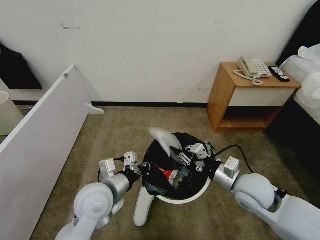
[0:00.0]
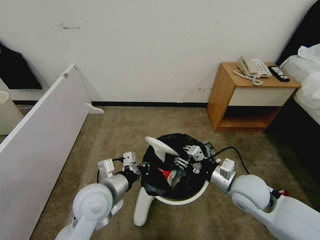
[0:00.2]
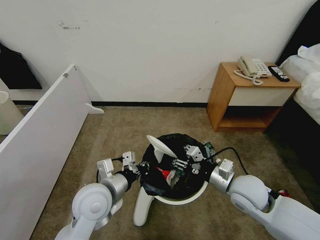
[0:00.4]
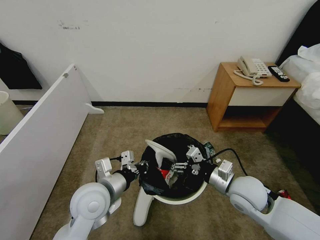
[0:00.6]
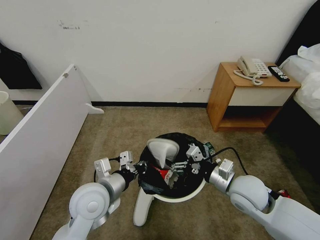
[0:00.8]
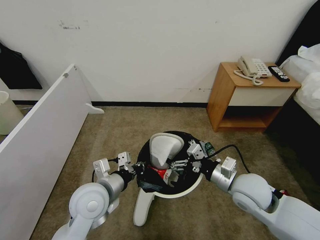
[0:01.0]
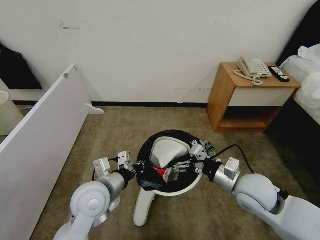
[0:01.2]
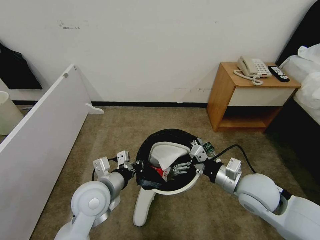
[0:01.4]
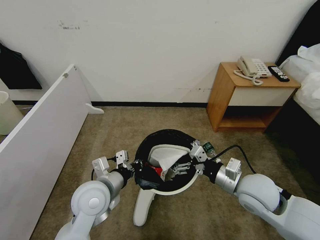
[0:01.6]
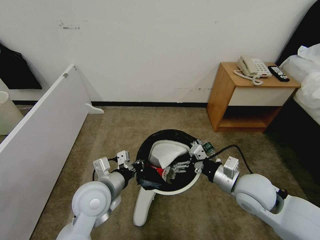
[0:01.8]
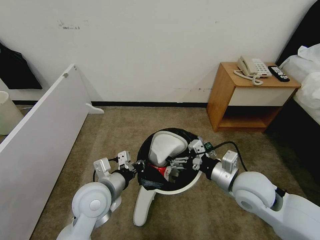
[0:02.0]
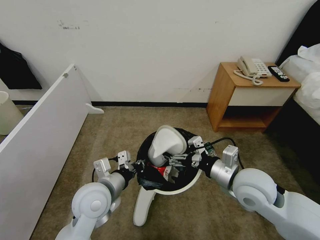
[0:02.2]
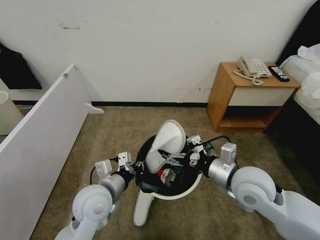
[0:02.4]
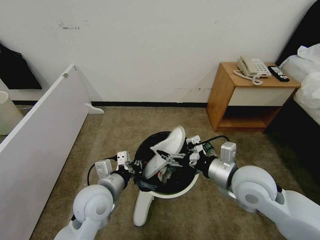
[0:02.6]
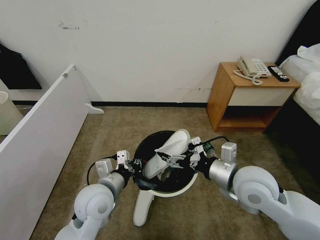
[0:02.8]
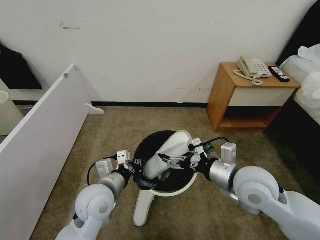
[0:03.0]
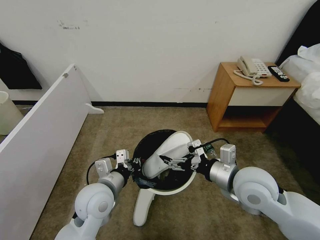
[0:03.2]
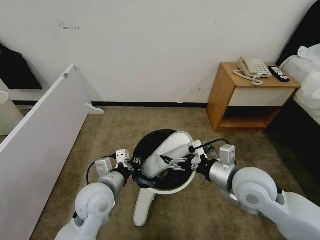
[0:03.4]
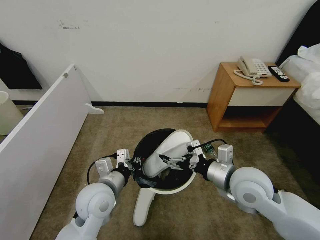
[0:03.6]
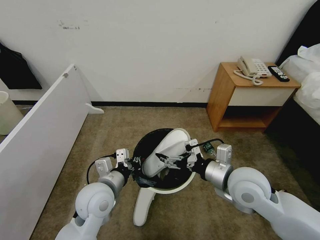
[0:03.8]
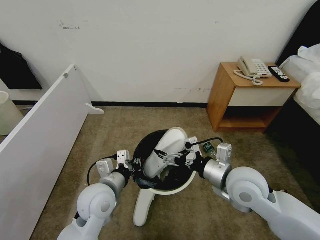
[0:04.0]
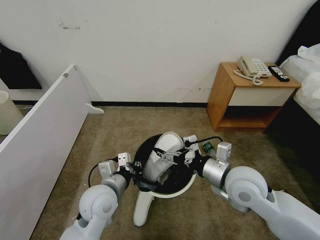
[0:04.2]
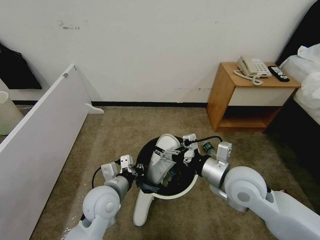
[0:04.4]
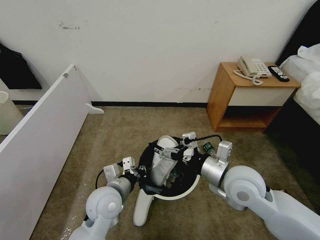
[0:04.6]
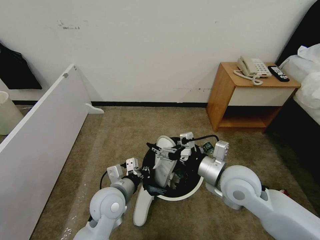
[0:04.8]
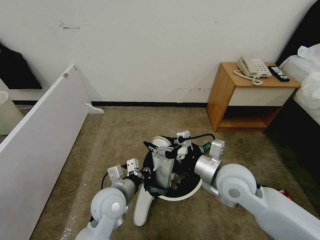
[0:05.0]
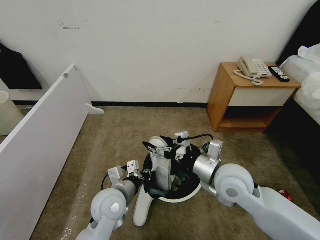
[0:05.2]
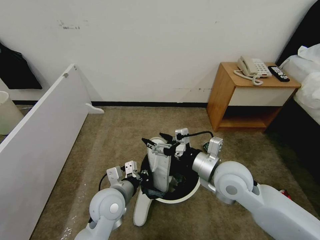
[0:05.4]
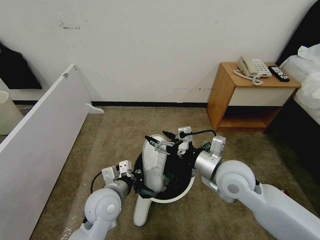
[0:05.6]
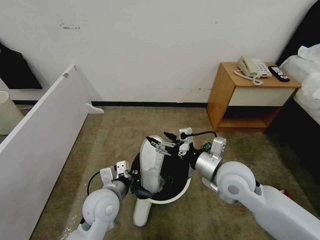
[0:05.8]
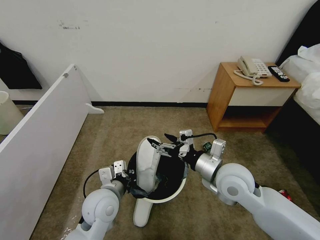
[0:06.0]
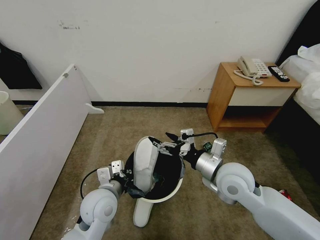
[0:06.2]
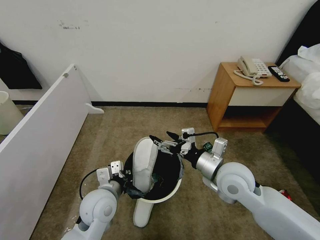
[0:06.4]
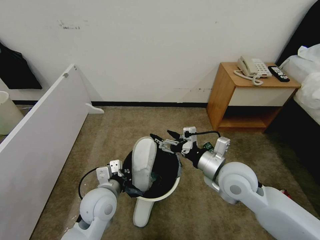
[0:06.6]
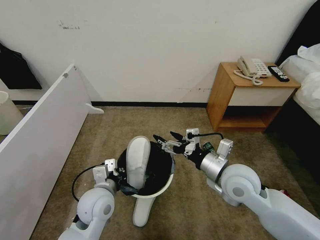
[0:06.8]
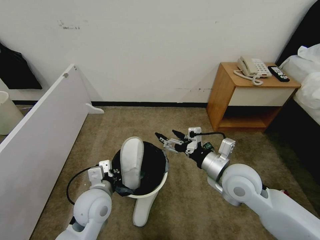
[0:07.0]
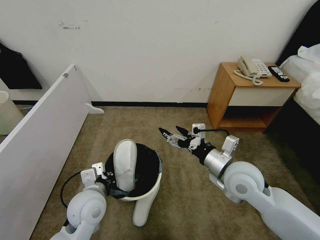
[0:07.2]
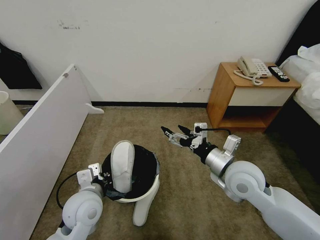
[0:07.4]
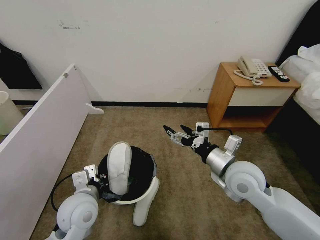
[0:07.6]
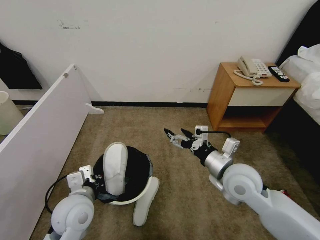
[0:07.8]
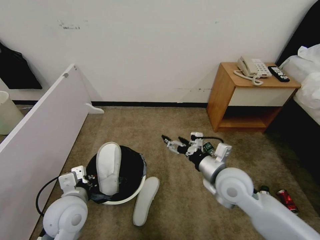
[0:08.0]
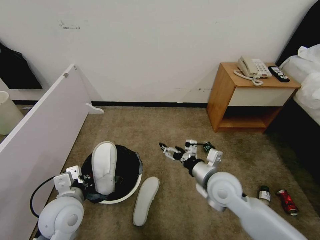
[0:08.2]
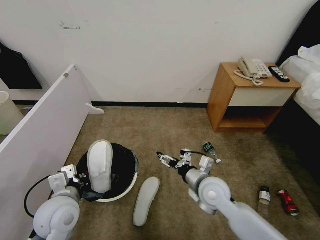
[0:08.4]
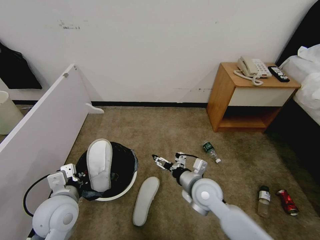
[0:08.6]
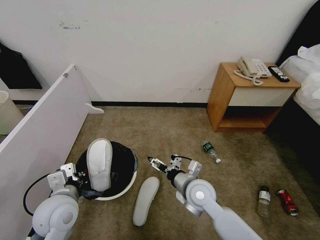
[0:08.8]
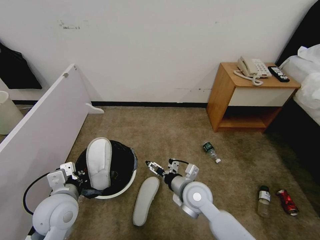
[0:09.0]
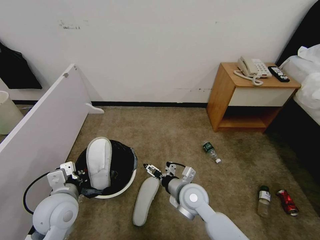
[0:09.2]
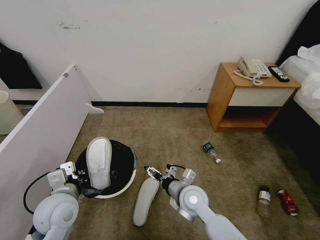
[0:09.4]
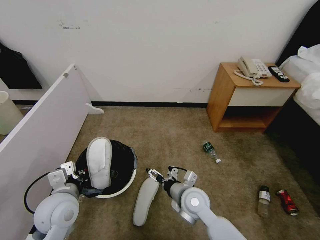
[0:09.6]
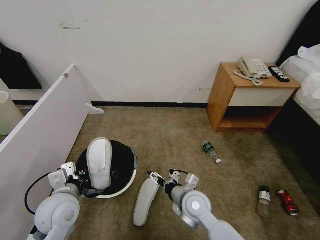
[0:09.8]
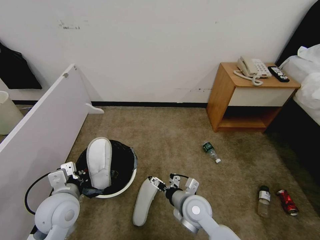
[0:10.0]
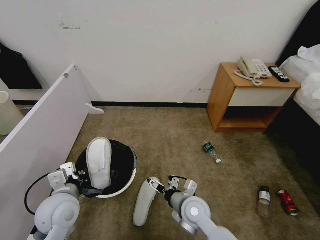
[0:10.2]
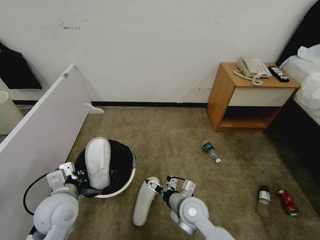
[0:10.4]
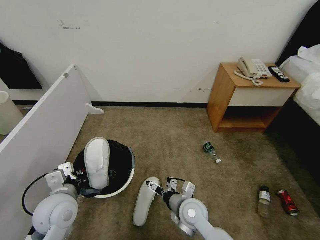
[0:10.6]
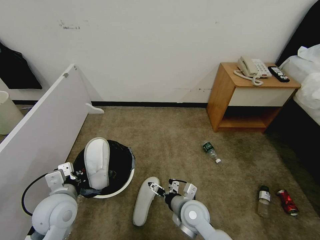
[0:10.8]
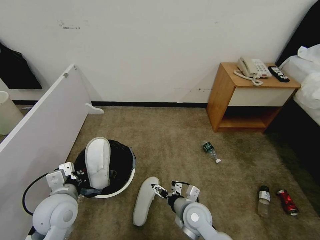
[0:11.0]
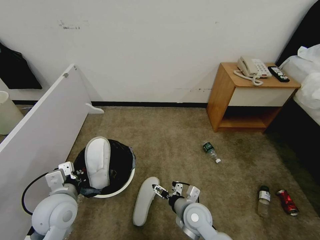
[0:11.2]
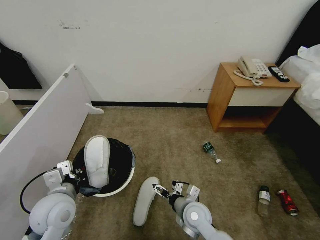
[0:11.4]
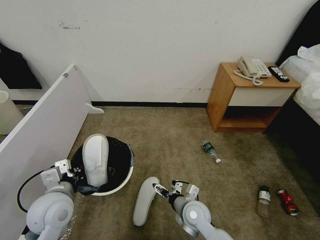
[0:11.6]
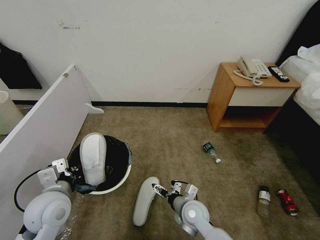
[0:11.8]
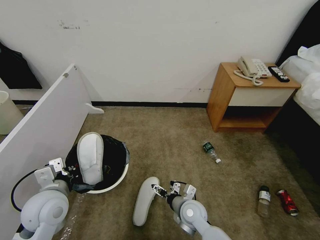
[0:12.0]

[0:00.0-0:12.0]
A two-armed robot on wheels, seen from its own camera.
Task of the whole recording: Pick up the trash bin, then pick up the garbage from the floor and place it into the trash bin.
0:00.0 to 0:01.6: The right gripper opens its fingers.
0:01.6 to 0:03.0: The right gripper moves about 5 cm.
0:03.0 to 0:06.0: There are only small adjustments of the grippers.
0:06.0 to 0:07.6: The left gripper moves about 5 cm.
0:07.6 to 0:09.0: The right gripper goes some 15 cm downward and to the left; the left gripper moves to the left, some 5 cm.
0:09.0 to 0:10.4: The right gripper moves roughly 5 cm.
0:10.4 to 0:12.0: The right gripper goes approximately 5 cm downward.

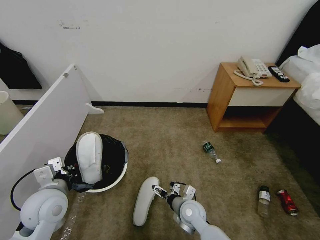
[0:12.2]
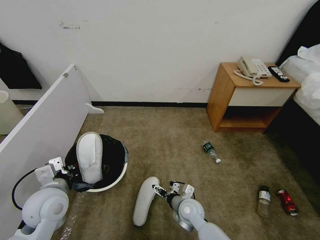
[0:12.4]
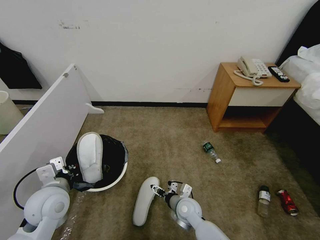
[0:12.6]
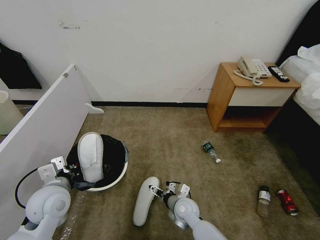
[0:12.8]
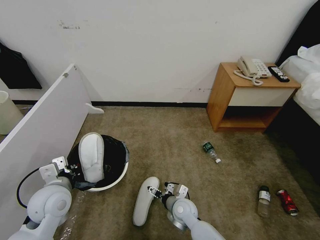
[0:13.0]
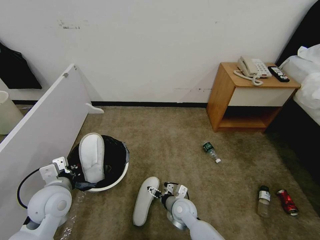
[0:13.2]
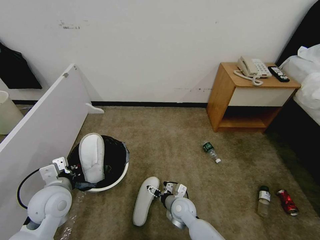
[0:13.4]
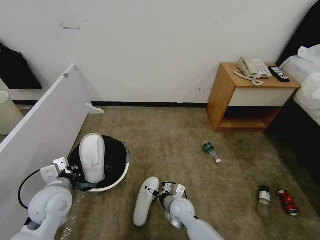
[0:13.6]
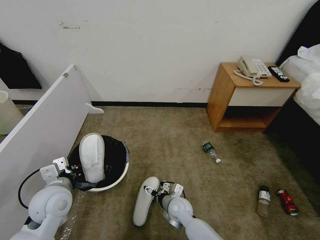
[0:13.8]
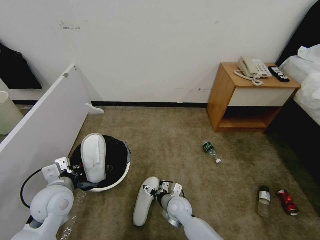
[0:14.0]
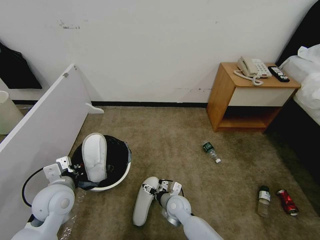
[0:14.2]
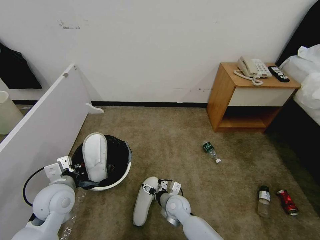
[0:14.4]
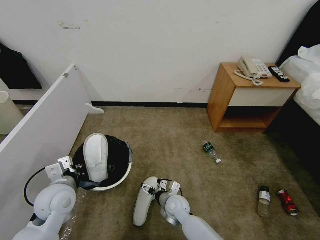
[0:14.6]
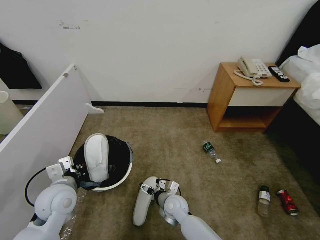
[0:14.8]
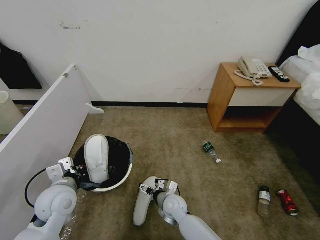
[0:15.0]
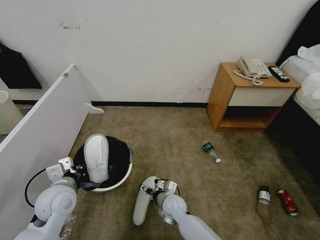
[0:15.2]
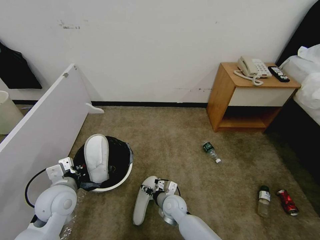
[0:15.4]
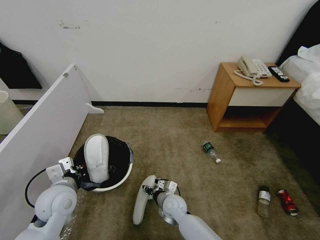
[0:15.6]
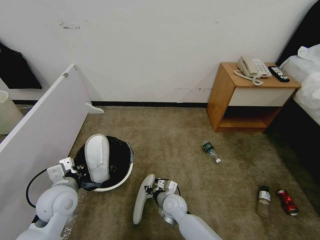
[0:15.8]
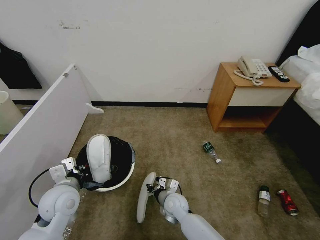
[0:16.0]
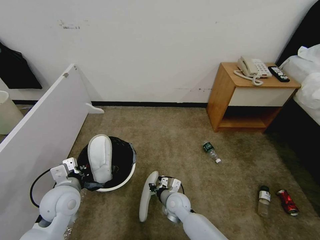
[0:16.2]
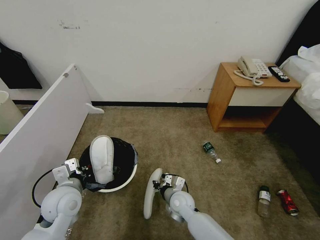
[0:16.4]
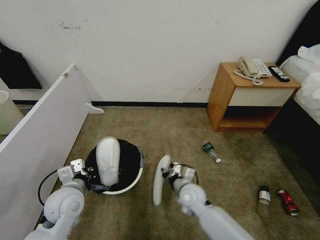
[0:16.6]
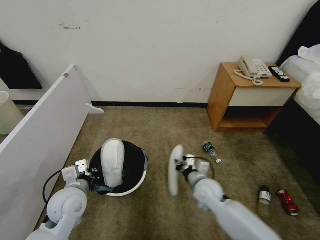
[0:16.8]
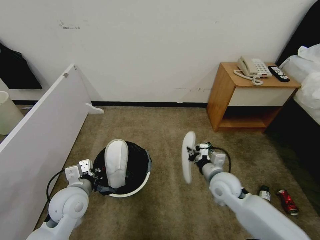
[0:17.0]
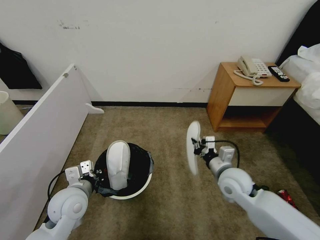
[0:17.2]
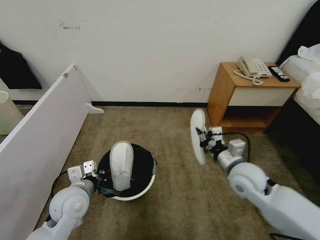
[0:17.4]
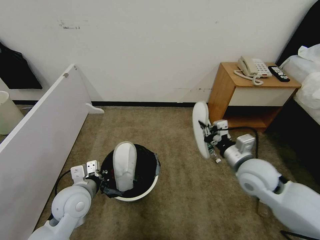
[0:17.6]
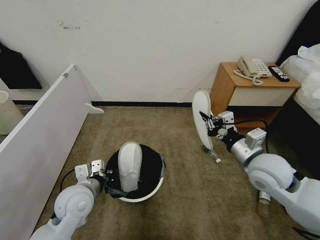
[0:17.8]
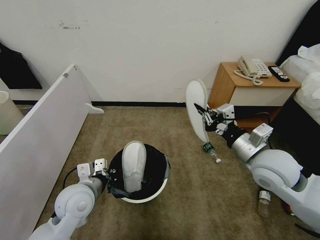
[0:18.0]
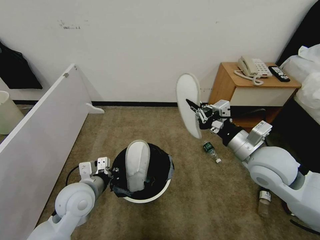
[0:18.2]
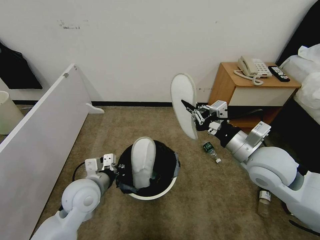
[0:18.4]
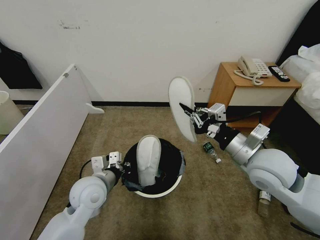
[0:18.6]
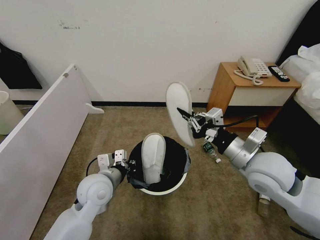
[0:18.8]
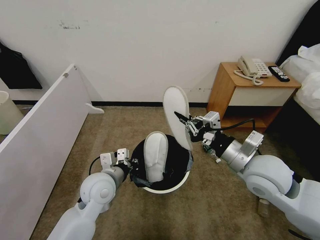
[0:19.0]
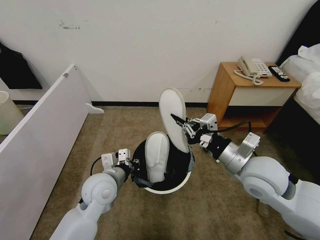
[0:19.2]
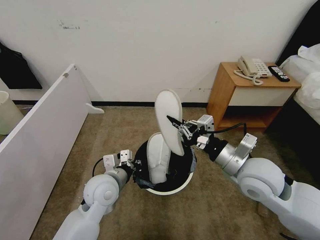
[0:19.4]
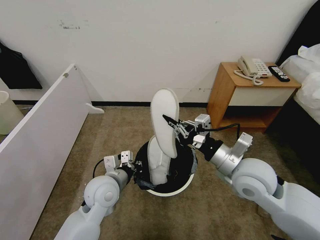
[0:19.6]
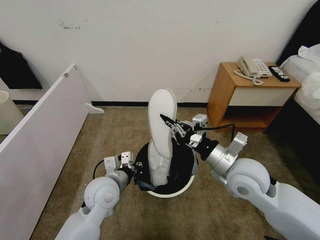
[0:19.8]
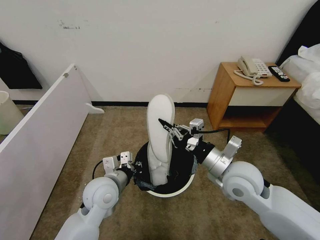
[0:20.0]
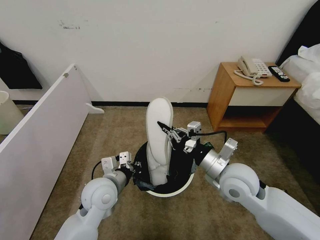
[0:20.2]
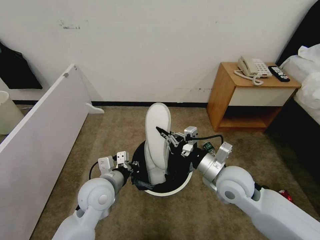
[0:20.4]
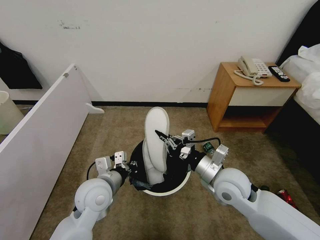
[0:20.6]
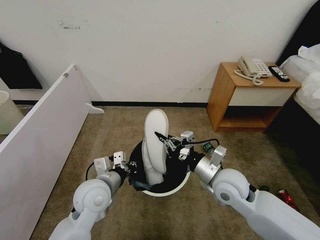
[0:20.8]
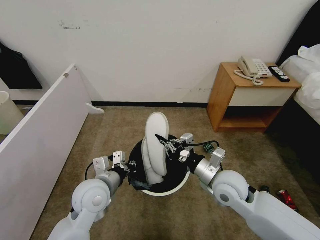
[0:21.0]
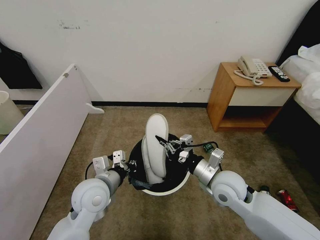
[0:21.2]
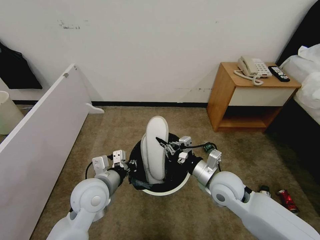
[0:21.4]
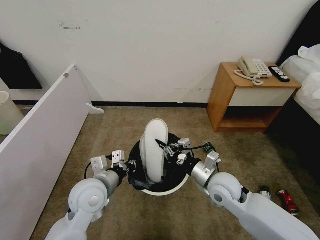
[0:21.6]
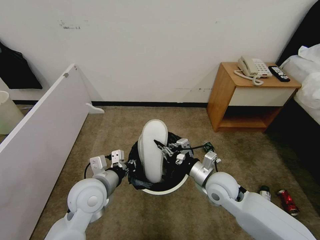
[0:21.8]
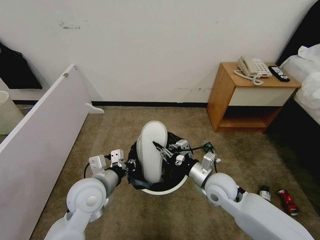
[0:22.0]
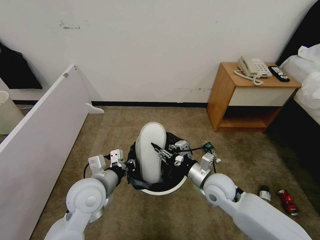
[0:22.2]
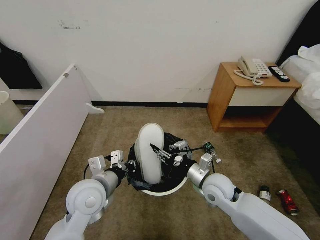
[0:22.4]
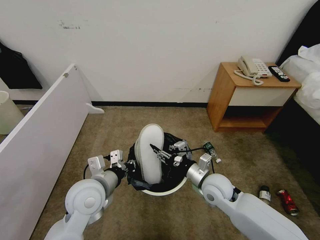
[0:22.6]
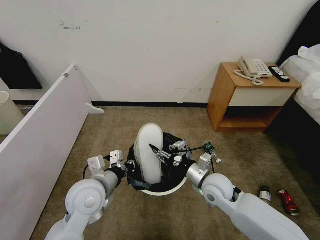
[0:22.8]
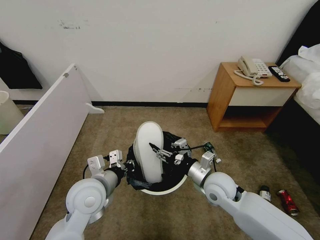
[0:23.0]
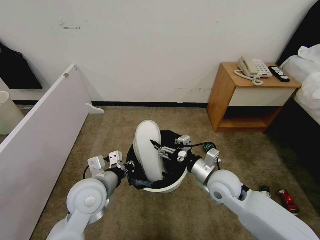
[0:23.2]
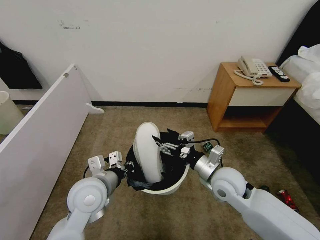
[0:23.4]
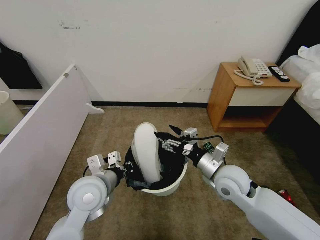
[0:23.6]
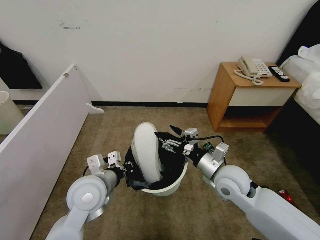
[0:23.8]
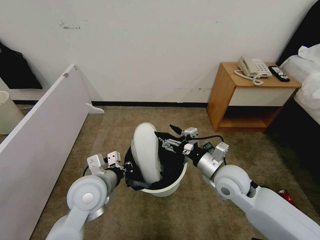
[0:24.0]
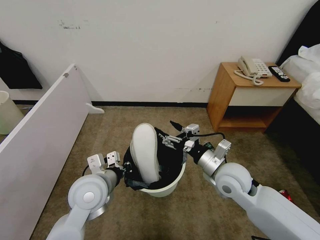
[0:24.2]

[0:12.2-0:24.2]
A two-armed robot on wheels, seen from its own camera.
Task of the whole recording: Pick up the trash bin, then pick up the garbage from the floor and place it into the trash bin.
0:12.2 to 0:13.8: The right gripper ends up roughly 5 cm from where it was.
0:13.8 to 0:15.2: There are only small adjustments of the grippers.
0:15.2 to 0:16.6: The right gripper goes some 5 cm upward, and closes.
0:16.6 to 0:18.2: The right gripper heads upward and to the right, covering approximately 30 cm.
0:18.2 to 0:19.8: The left gripper travels to the right by about 5 cm, while the right gripper goes some 5 cm to the left.
0:19.8 to 0:21.2: The right gripper heads downward, covering some 10 cm.
0:21.2 to 0:22.6: The right gripper heads downward, covering approximately 5 cm, and opens.
0:22.6 to 0:24.2: The right gripper goes some 5 cm upward.
